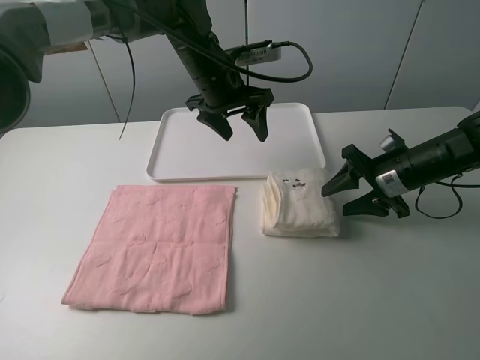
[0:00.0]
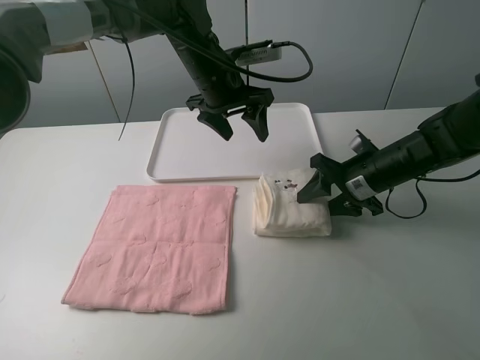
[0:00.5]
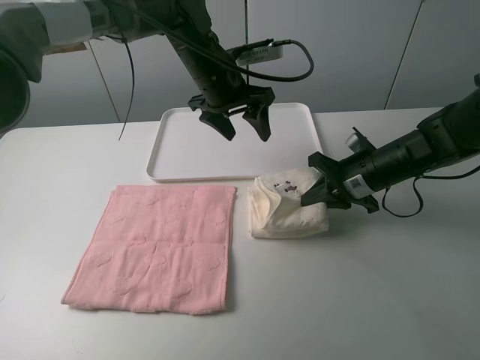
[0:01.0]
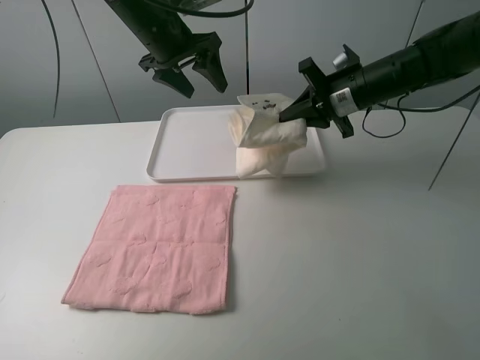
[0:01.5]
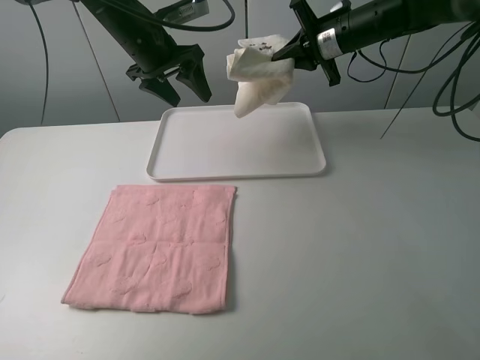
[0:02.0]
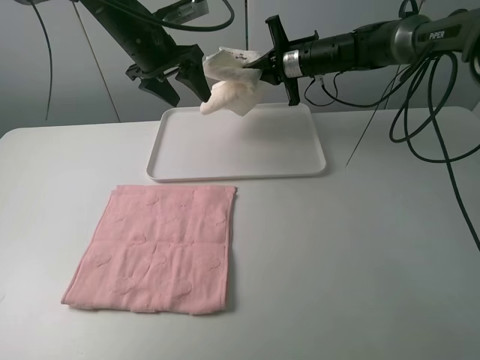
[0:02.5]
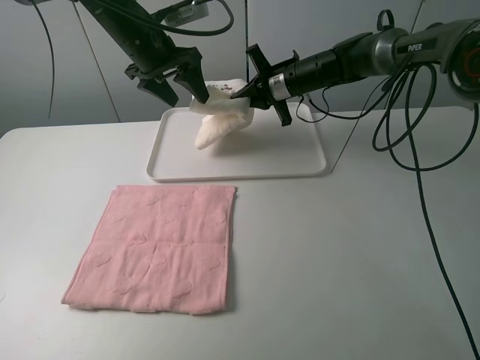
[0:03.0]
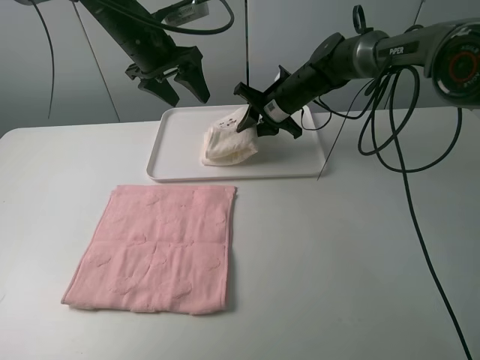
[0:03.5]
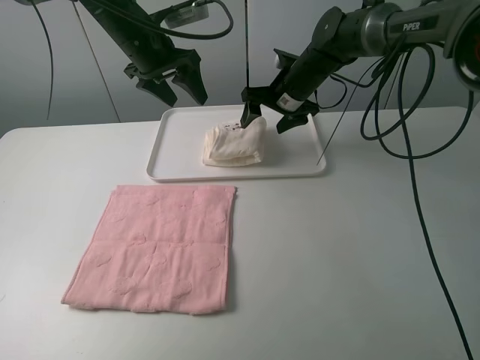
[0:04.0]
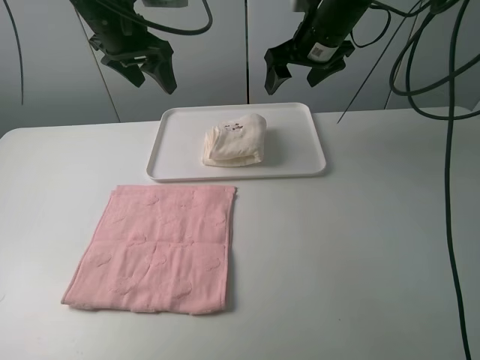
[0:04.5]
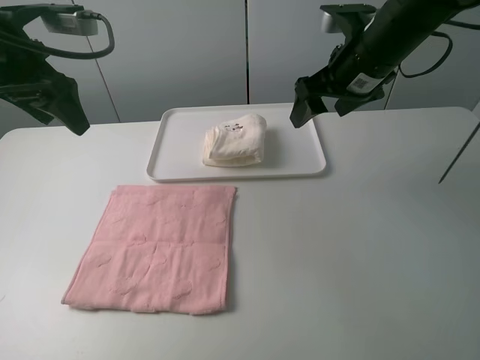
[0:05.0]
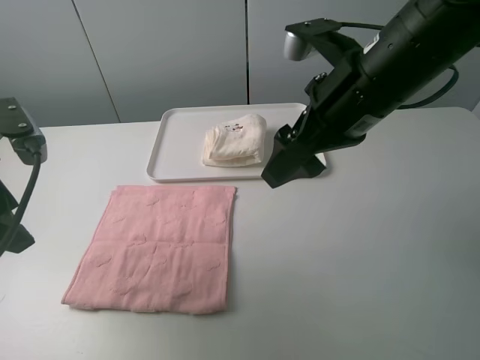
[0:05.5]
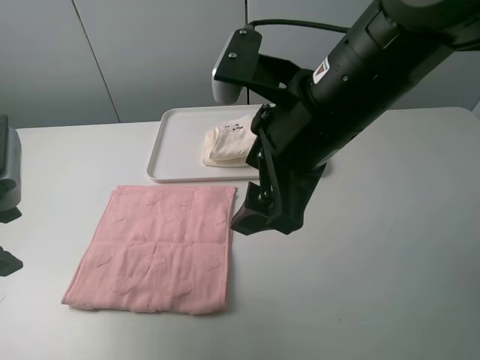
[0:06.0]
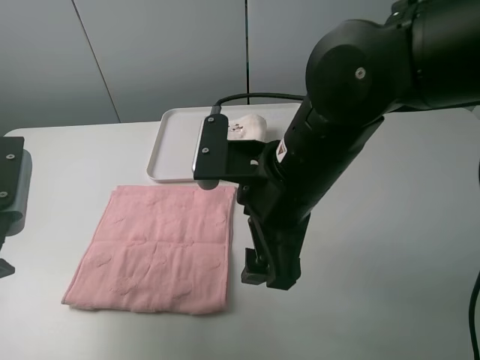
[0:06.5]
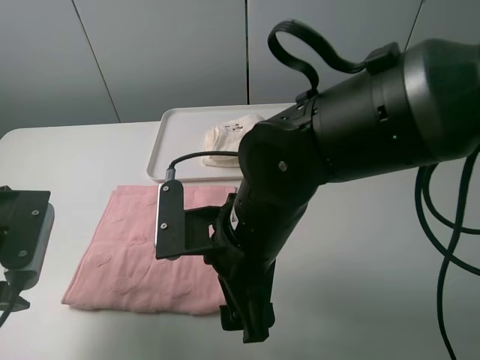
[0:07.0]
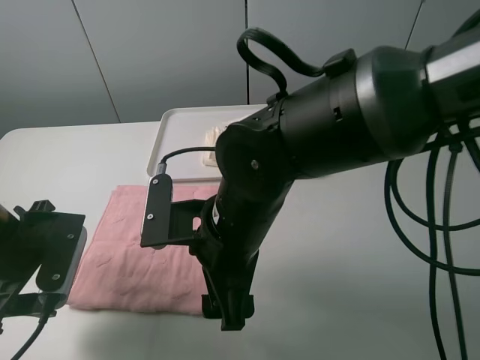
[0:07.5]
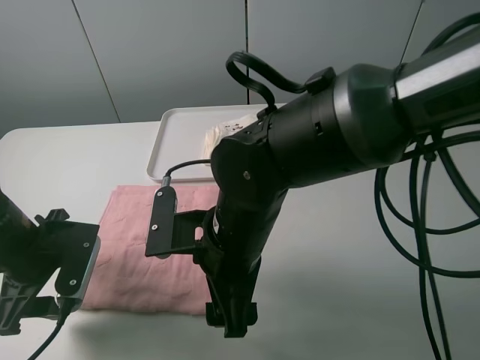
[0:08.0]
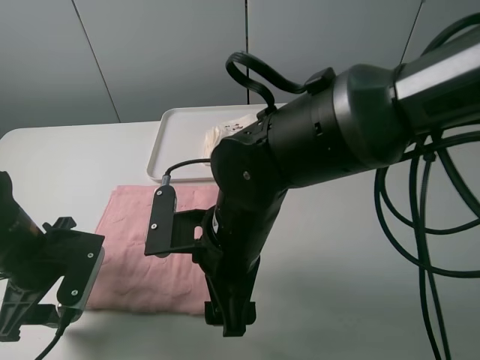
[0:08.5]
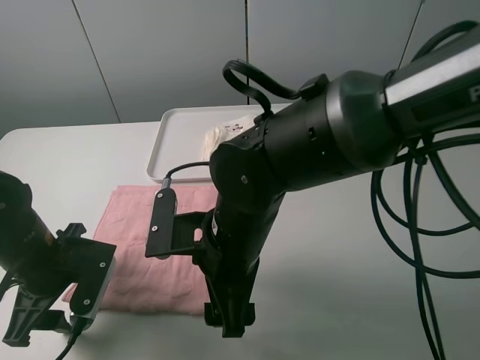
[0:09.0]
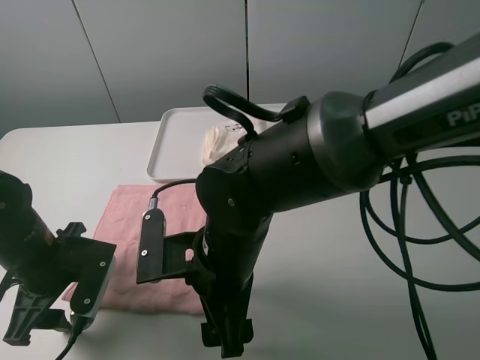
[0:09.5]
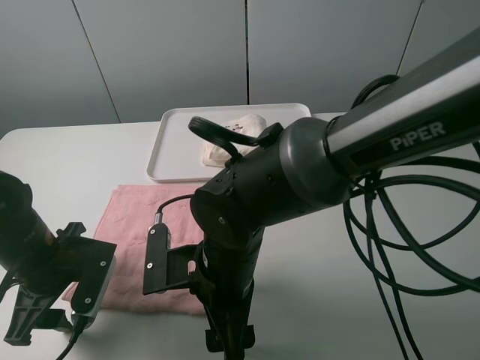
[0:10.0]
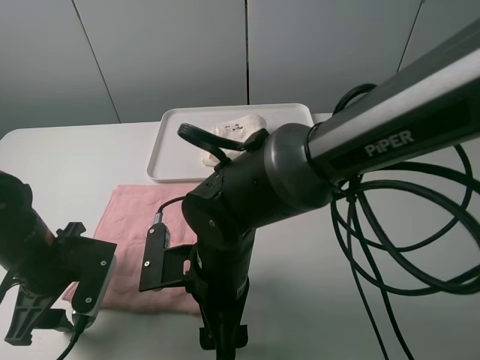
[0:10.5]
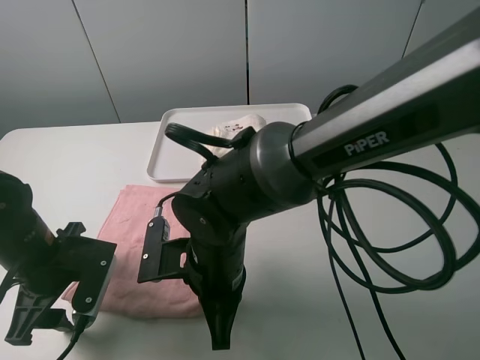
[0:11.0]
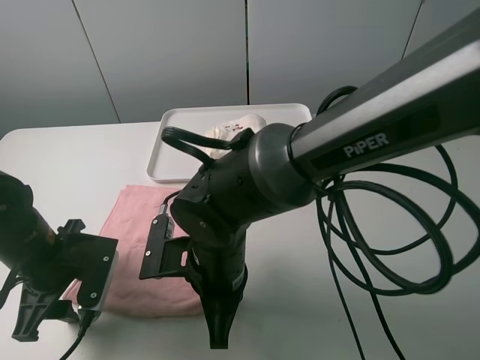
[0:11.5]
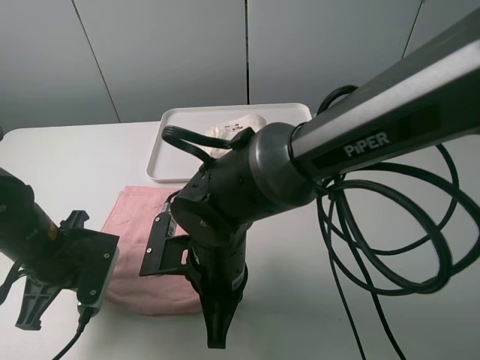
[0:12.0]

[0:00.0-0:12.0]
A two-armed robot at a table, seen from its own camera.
Task of the whole recording: fold one of the towels by two grippers and place it on the tray,then fold another towel by two grippers and place it on the folded towel.
Step, 0:01.0 to 0:04.0: Move the white towel to the plate with the right gripper.
Step, 0:04.5 to 0:11.5: Grasp the pink towel with the left gripper.
0:00.0 to 0:02.0: The left gripper moves to the left, about 10 cm; the right gripper goes some 25 cm forward, upward and to the left, and closes its fingers.
0:02.0 to 0:04.0: The right gripper is displaced to the left and downward by roughly 10 cm, and opens up.
0:04.0 to 0:06.0: The right gripper heads backward, covering approximately 30 cm, while the left gripper moves backward and to the left, some 30 cm.
0:06.0 to 0:08.0: The right gripper shifts about 15 cm downward and to the left, while the left gripper moves downward, some 15 cm.
0:10.0 to 0:12.0: The right gripper closes its fingers, while the left gripper closes.

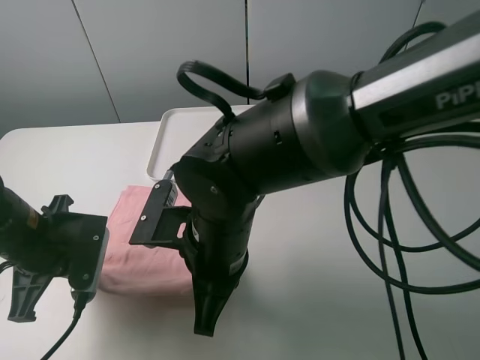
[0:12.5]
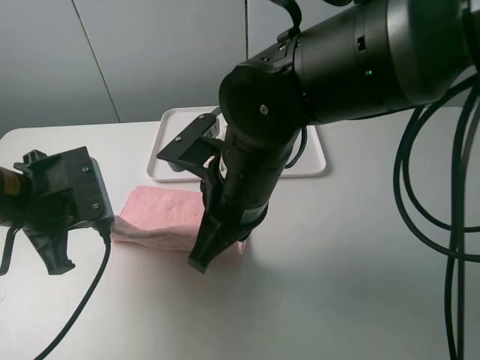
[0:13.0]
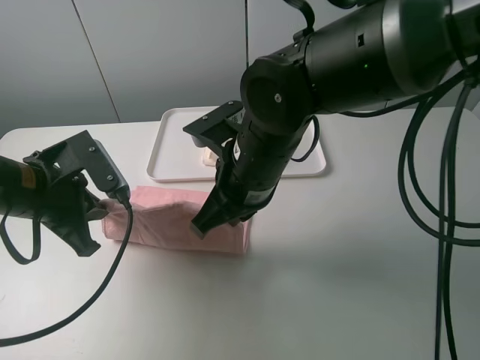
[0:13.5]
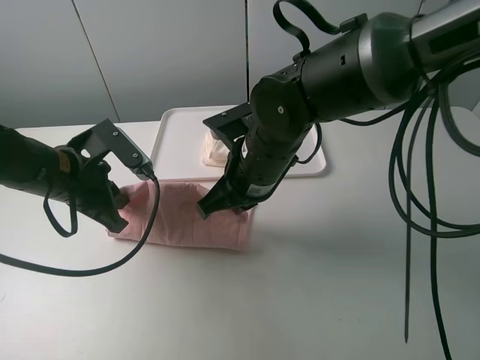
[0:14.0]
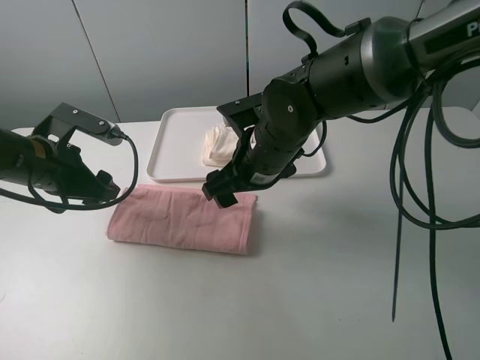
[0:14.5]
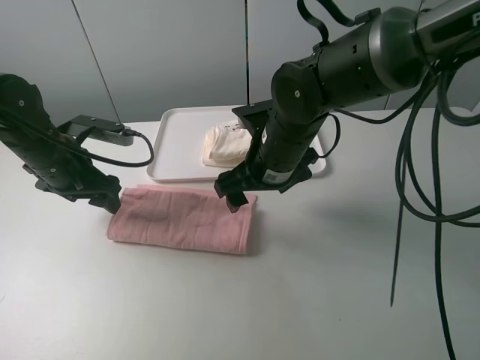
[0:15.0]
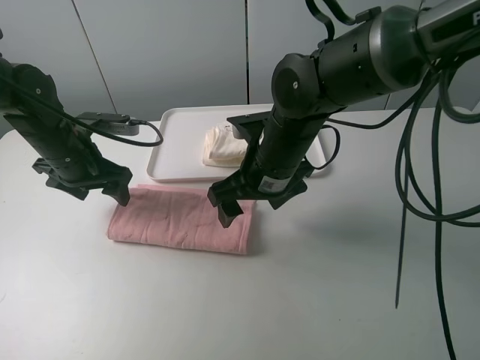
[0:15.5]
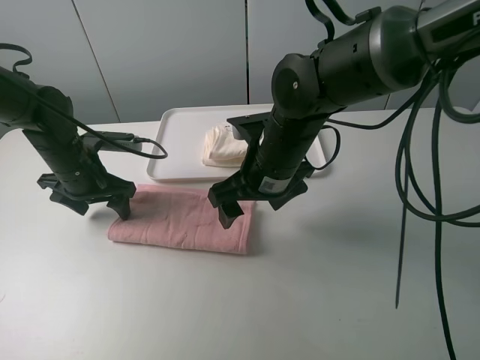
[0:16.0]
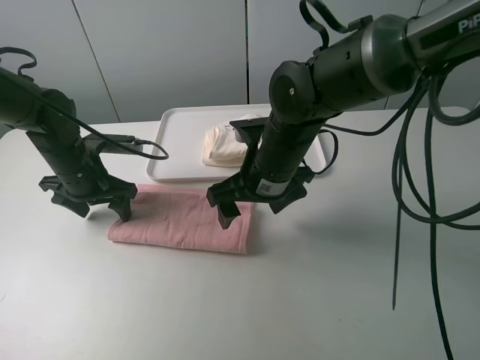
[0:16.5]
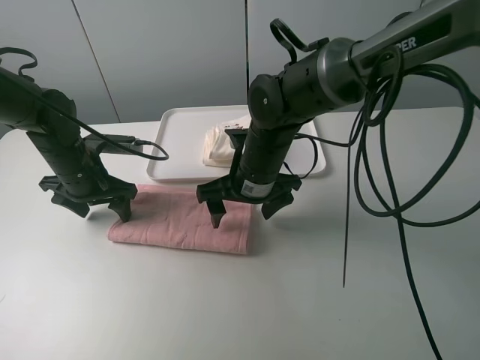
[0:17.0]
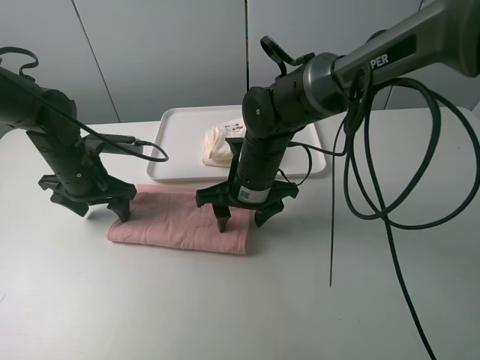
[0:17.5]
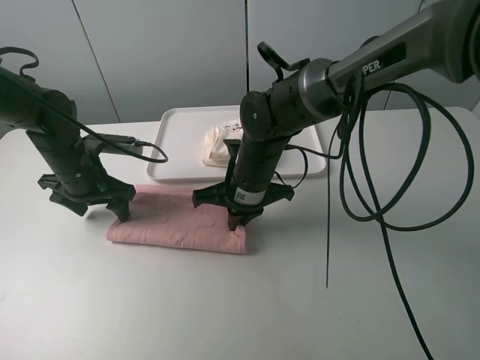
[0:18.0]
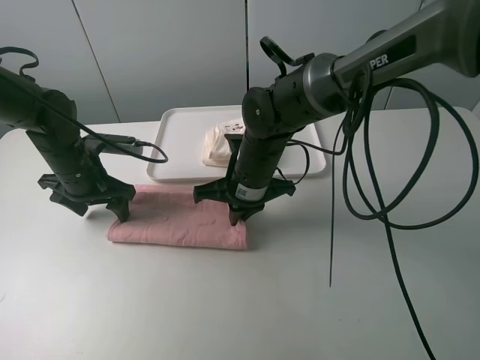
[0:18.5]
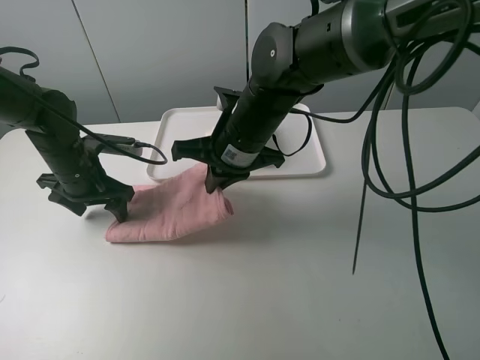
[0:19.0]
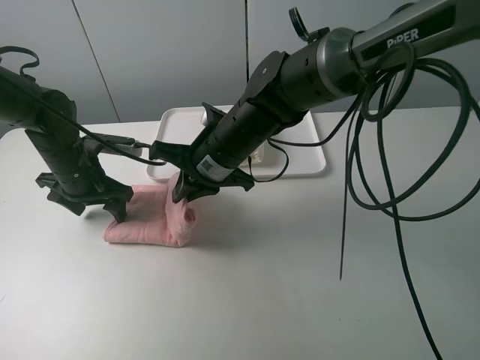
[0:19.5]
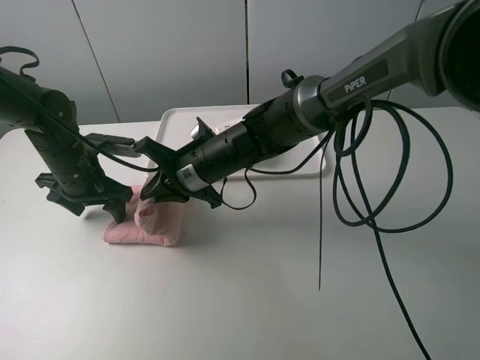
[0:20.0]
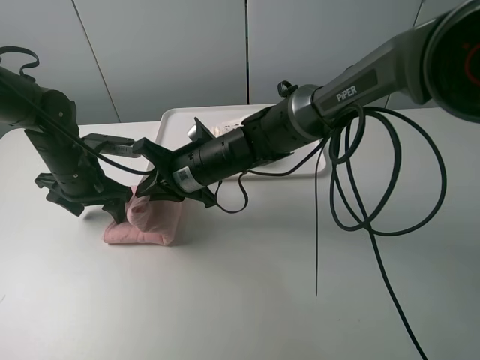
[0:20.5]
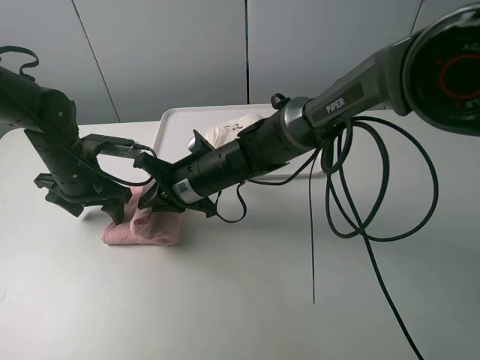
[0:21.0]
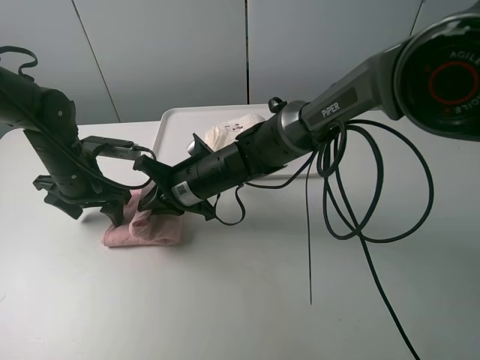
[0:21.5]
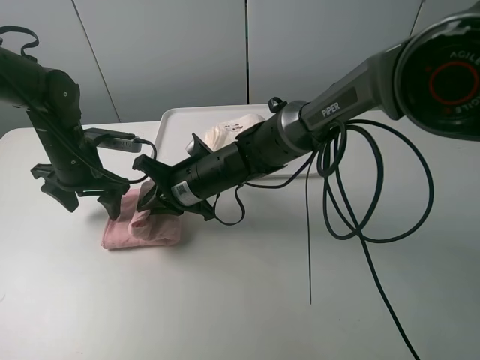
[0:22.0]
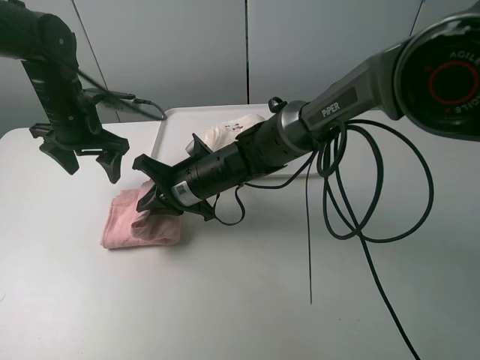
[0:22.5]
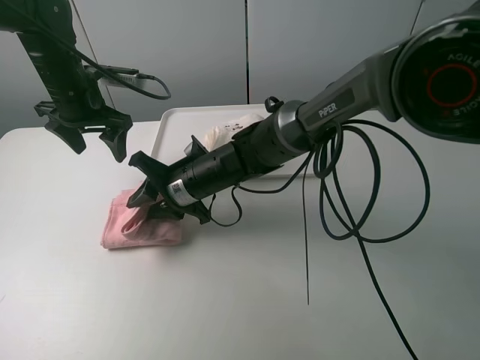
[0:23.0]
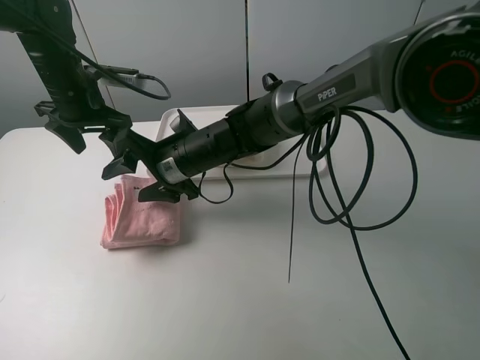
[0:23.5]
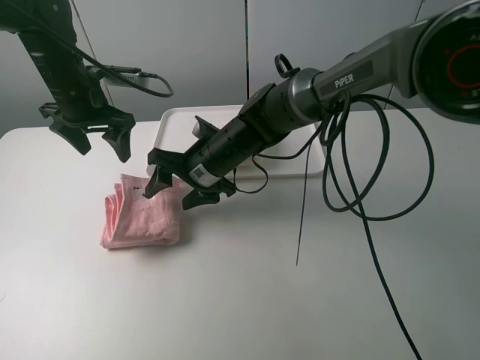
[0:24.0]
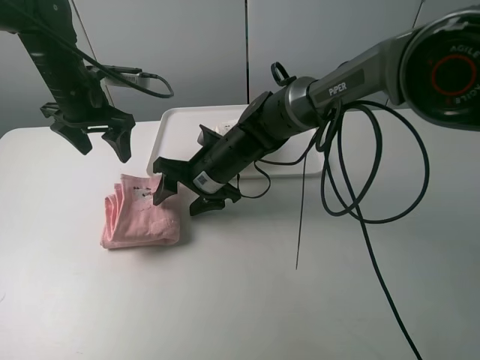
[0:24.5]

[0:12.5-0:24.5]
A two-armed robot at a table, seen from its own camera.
Task of the whole recording: fold one of the towels by two grippers and place it on the tray,then fold another towel by two grippers and place it on the folded towel.
Step, 0:12.5 to 0:14.5: Fold the pink towel upwards with the left gripper.
Step, 0:15.0 to 0:16.5: Press the pink towel with the left gripper.
Step, 0:17.0 to 0:18.0: Grasp the pink towel with the right gripper.
Step, 0:18.5 to 0:23.5: Fold the pink towel from right to left with right gripper.
0:12.5 to 0:14.5: The left gripper goes roughly 10 cm forward, and opens its fingers. The right gripper heads forward and to the right, covering some 15 cm, and opens.
0:14.5 to 0:16.5: The left gripper goes about 5 cm forward.
0:16.5 to 0:18.5: The right gripper shifts by roughly 5 cm, and closes its fingers.
0:18.5 to 0:20.5: The right gripper goes some 5 cm to the left.
0:20.5 to 0:22.5: The left gripper moves upward and forward, about 10 cm.
0:22.5 to 0:24.5: The right gripper opens.

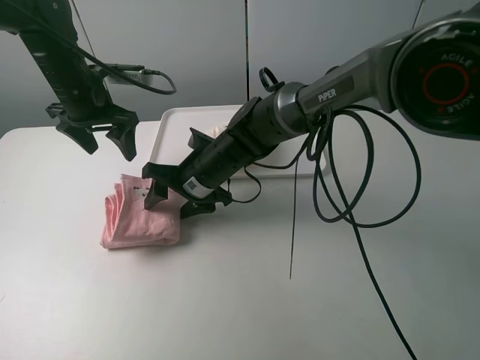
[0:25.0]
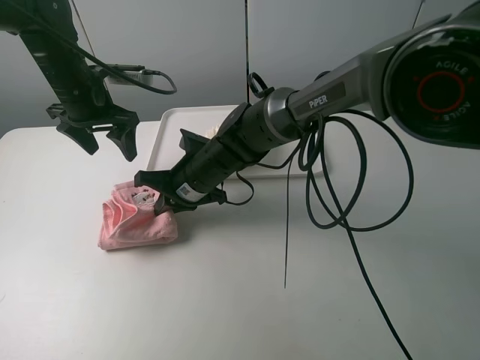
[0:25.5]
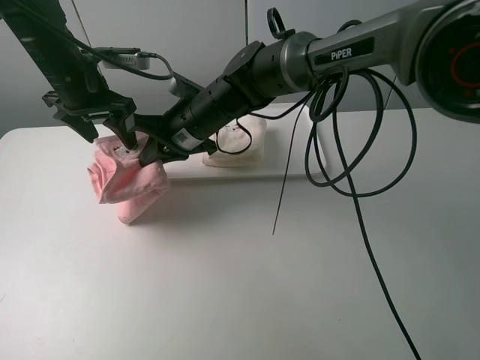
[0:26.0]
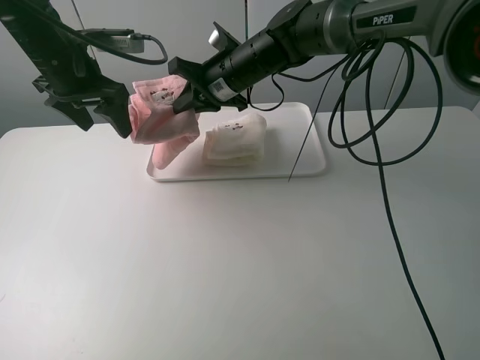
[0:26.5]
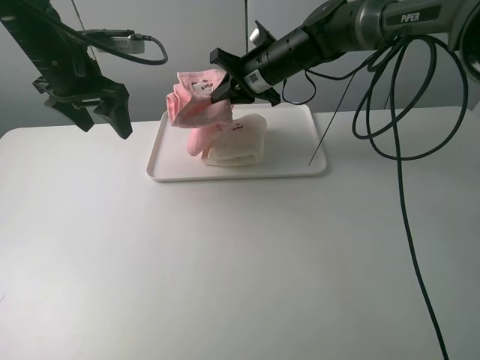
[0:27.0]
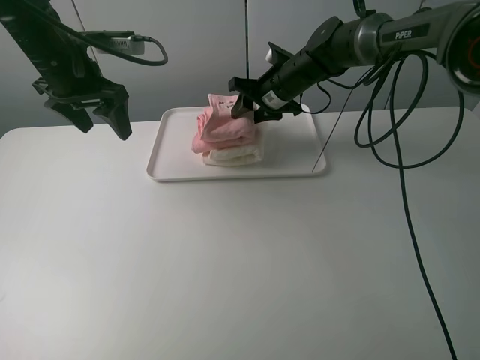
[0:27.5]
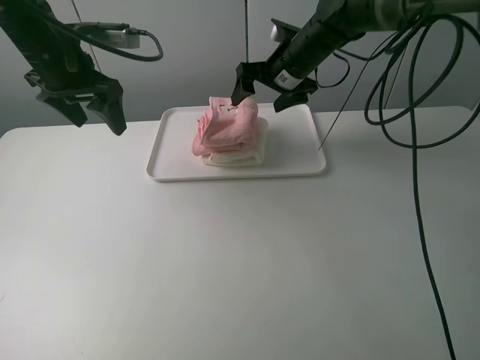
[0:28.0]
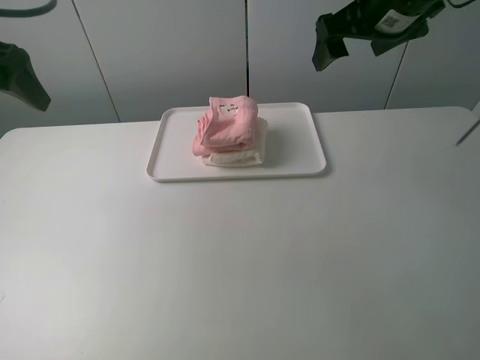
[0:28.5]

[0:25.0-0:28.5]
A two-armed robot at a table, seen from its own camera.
Task of the whole recording: fold one of the towels by two grippers and place it on the tray,then fold another towel by two grippers and place it on the folded towel.
Step, 0:25.5 to 0:28.0: Place the pink towel on the white towel with the right gripper.
0:25.0 to 0:27.0: The right gripper goes some 20 cm forward, to the right and upward, and closes its fingers.
0:27.0 to 0:28.5: The right gripper travels upward, backward and to the right by roughly 25 cm, and opens. Meanwhile the left gripper heads backward, upward and to the left, covering about 15 cm.
